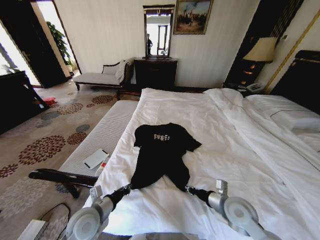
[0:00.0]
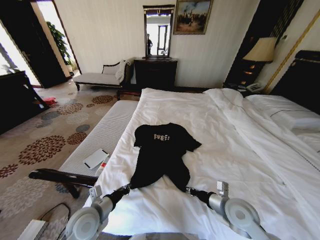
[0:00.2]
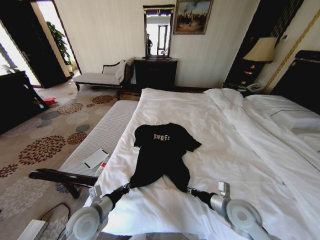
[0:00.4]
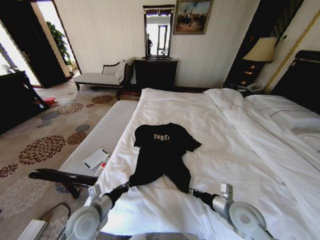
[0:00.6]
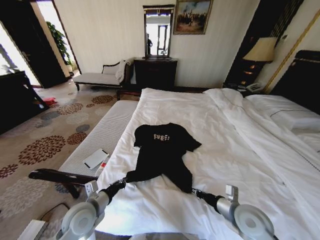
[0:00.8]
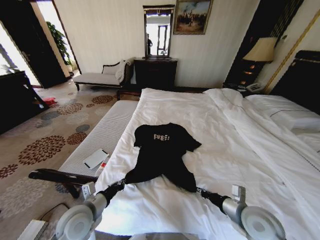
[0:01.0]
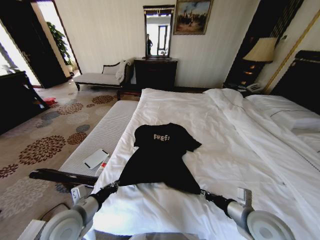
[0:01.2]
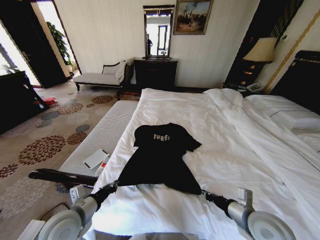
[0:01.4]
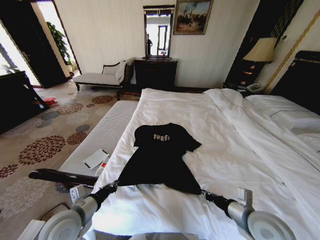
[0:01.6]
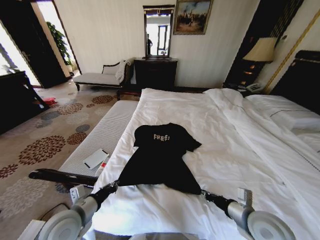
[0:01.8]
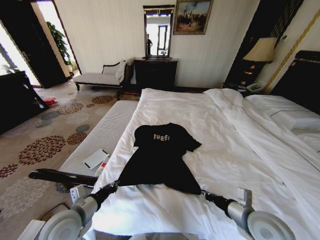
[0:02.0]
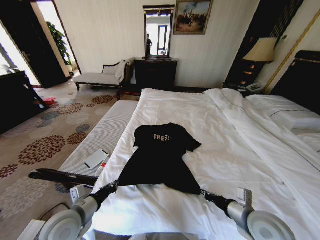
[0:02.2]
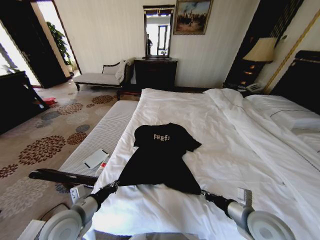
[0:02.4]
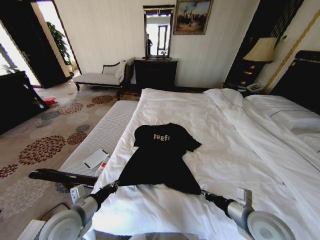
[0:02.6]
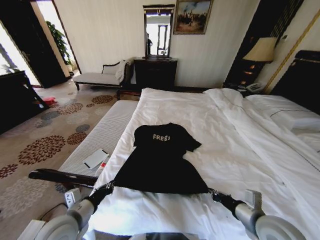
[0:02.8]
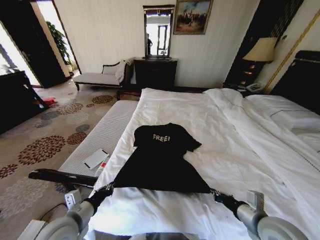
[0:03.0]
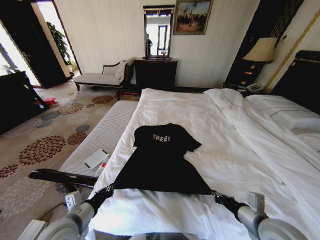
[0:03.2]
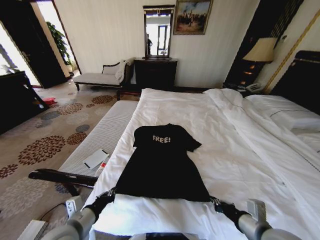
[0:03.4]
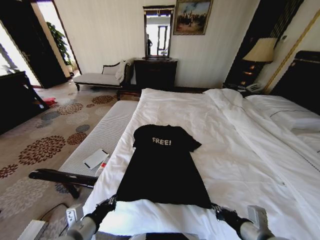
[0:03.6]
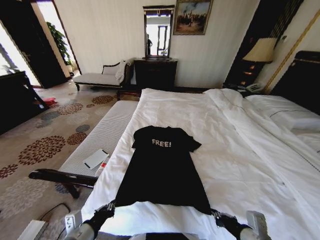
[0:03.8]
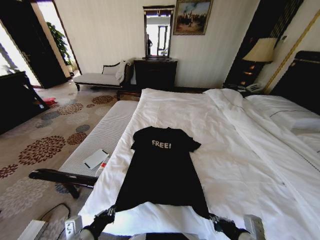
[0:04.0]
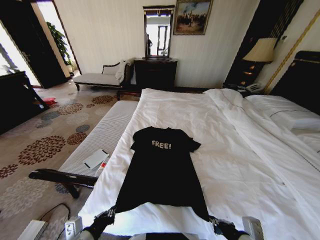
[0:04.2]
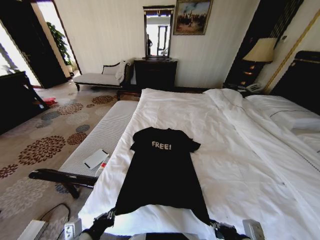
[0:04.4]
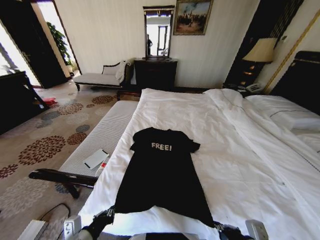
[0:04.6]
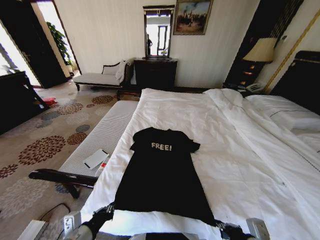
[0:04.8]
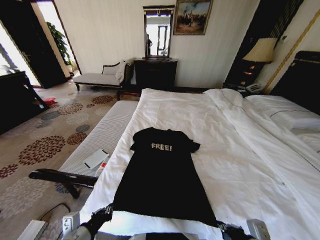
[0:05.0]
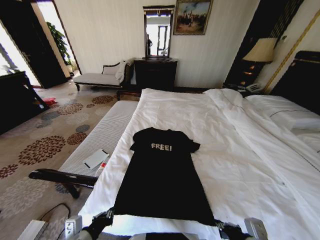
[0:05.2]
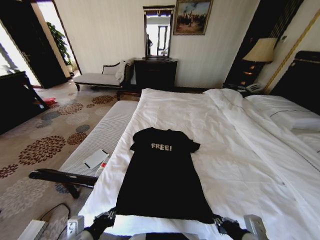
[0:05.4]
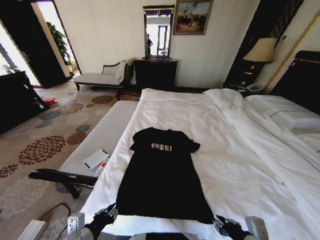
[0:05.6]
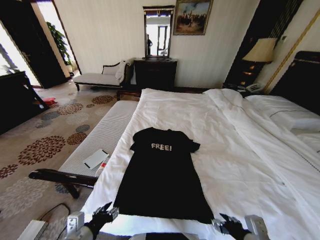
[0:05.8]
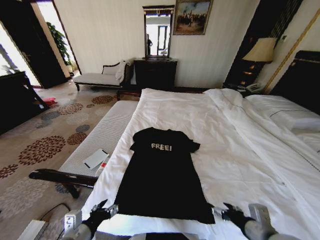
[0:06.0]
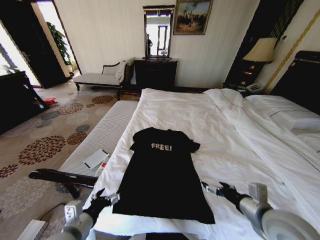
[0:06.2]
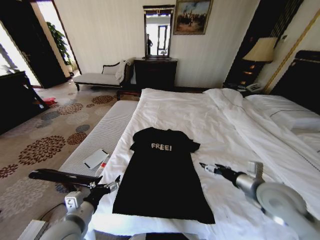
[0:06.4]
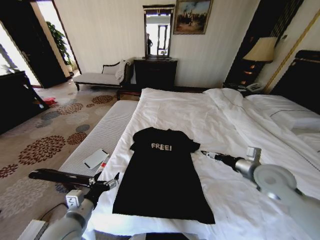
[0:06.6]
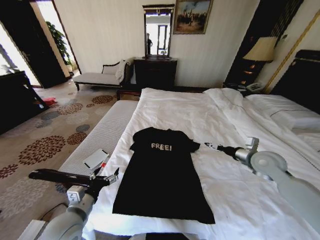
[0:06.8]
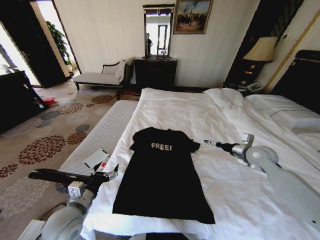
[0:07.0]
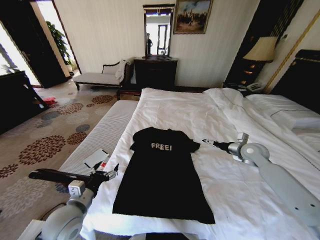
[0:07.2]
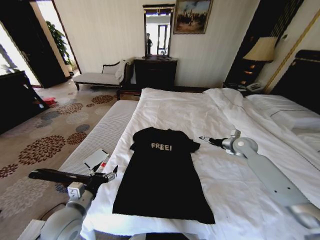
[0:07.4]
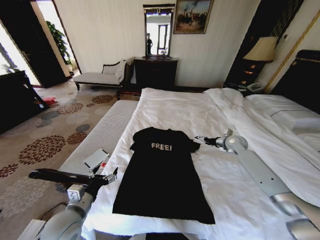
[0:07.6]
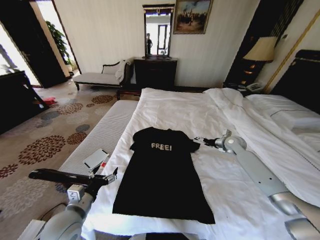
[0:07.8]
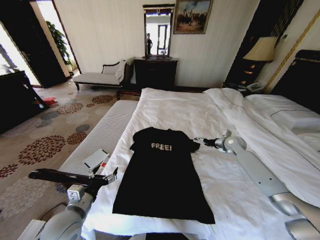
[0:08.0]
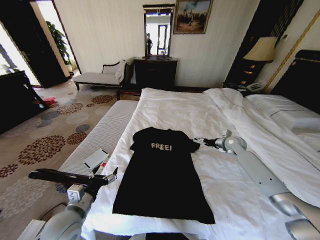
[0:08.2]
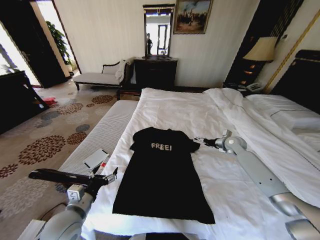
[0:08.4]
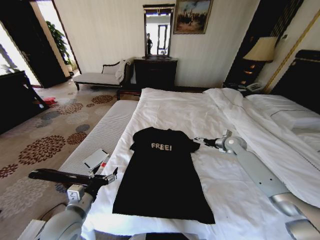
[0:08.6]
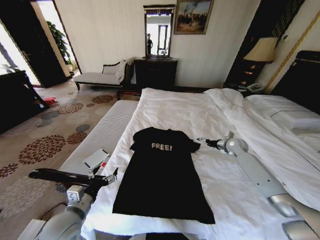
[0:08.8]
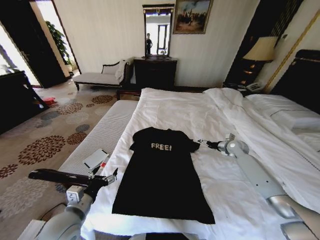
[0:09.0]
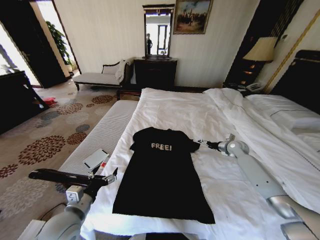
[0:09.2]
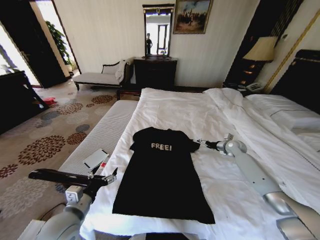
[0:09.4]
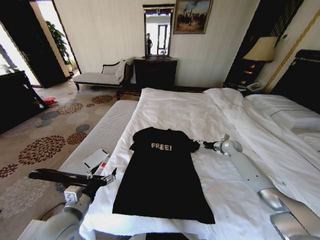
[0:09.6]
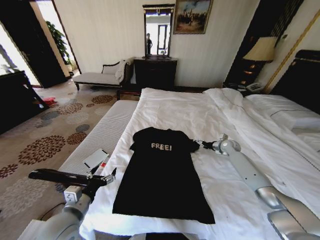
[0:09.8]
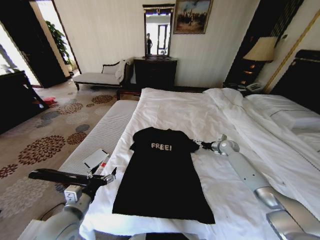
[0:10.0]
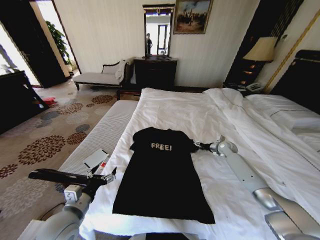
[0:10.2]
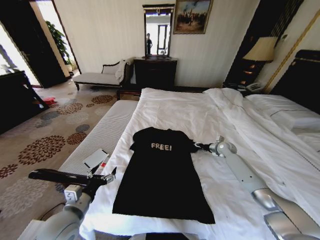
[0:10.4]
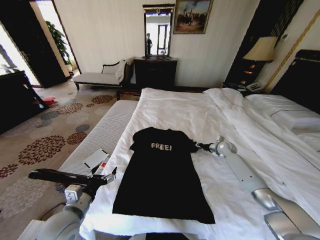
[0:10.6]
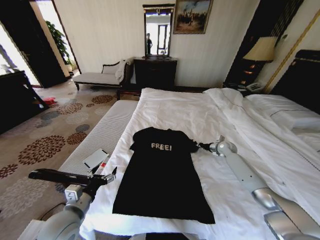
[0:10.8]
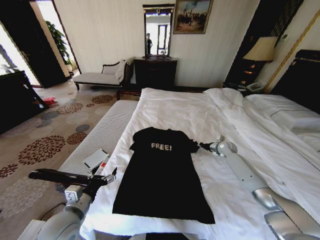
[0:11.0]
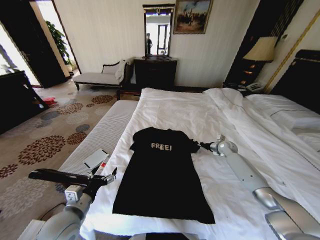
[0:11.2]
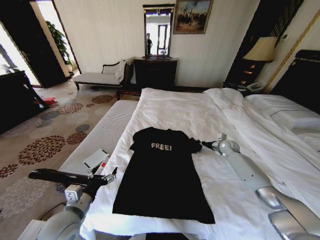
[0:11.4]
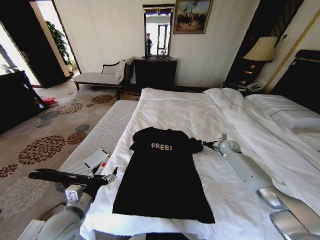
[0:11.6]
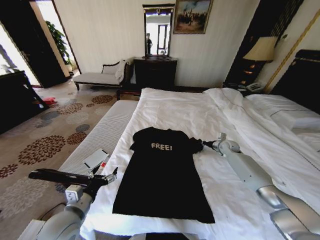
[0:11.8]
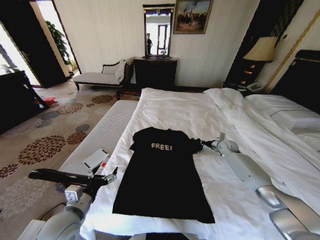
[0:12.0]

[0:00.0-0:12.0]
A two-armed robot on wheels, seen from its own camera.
Task of the whole recording: Fold the clothes on the bed.
0:00.0 to 0:01.6: The right gripper heads backward, covering some 5 cm; the left gripper changes place by approximately 5 cm.
0:01.6 to 0:03.0: The grippers stay close to where they were, moving slightly.
0:03.0 to 0:04.4: Both grippers travel together backward, about 10 cm.
0:04.4 to 0:06.0: The left gripper opens. The right gripper opens.
0:06.0 to 0:07.6: The left gripper travels forward by approximately 10 cm. Meanwhile the right gripper shifts about 40 cm forward.
0:07.6 to 0:09.0: The grippers make only small movements.
0:09.0 to 0:10.4: The right gripper changes place by some 5 cm, and closes.
0:10.4 to 0:12.0: The right gripper closes.

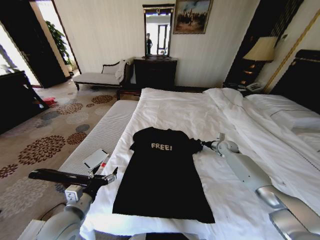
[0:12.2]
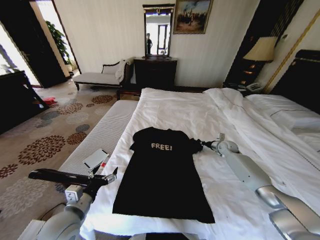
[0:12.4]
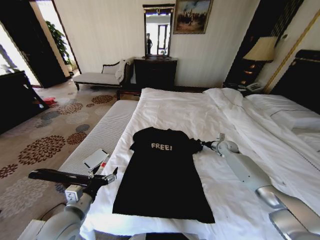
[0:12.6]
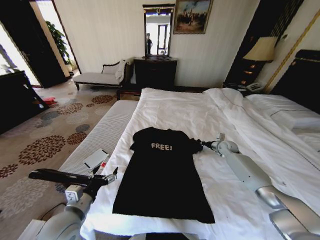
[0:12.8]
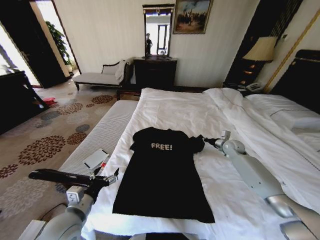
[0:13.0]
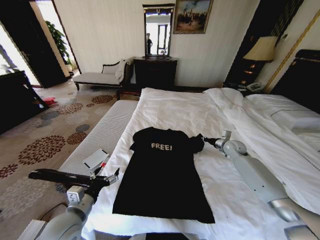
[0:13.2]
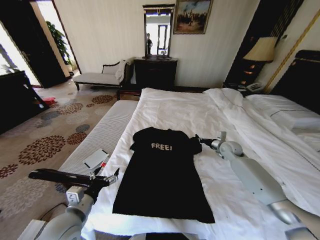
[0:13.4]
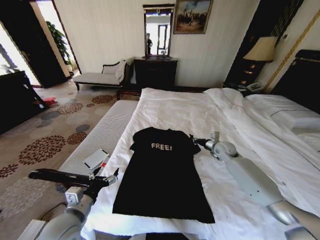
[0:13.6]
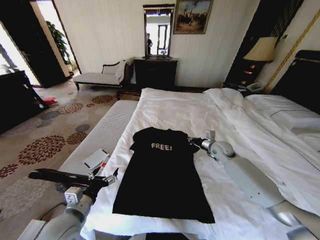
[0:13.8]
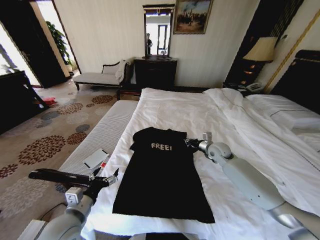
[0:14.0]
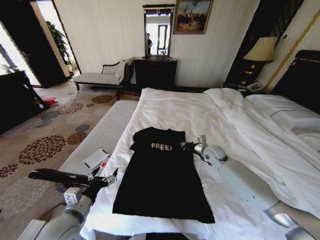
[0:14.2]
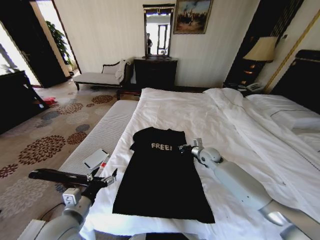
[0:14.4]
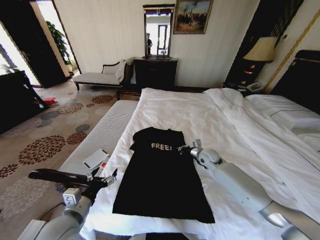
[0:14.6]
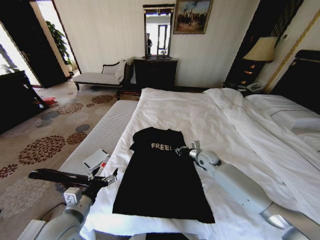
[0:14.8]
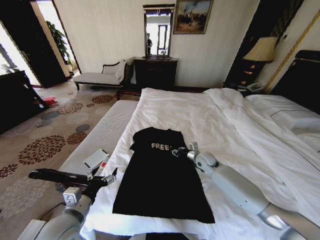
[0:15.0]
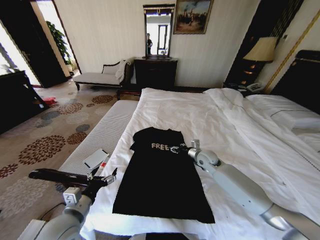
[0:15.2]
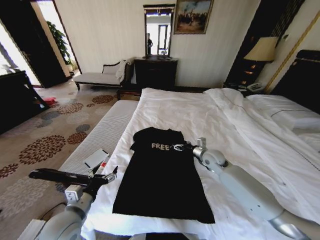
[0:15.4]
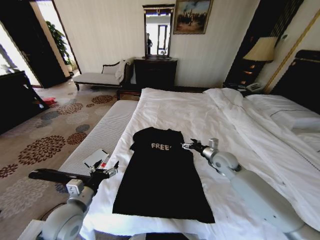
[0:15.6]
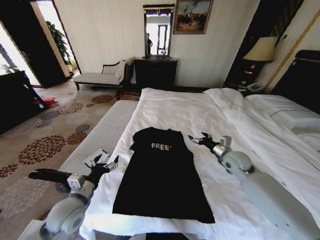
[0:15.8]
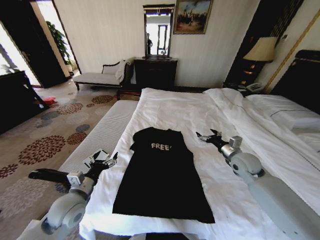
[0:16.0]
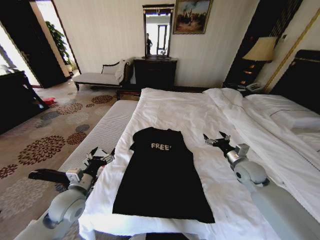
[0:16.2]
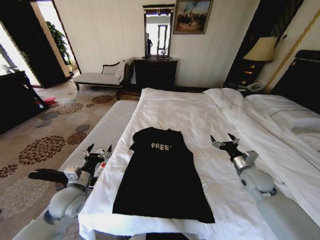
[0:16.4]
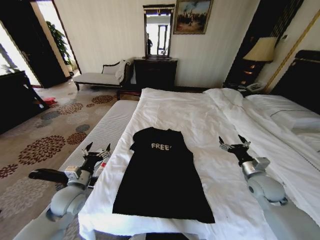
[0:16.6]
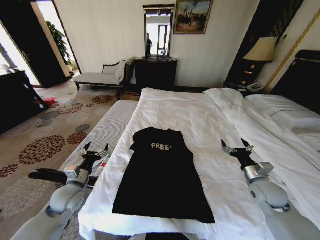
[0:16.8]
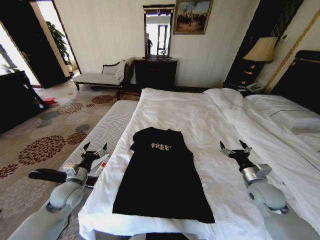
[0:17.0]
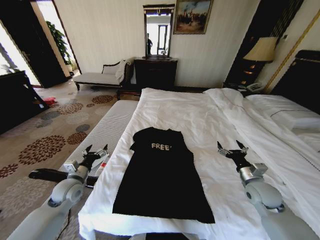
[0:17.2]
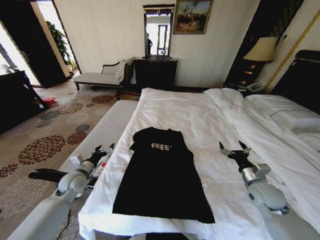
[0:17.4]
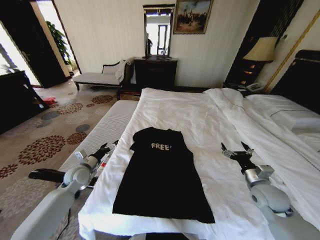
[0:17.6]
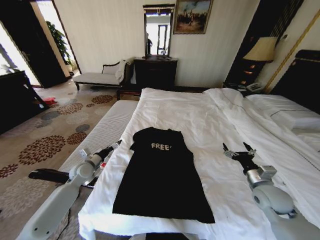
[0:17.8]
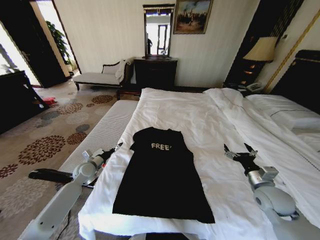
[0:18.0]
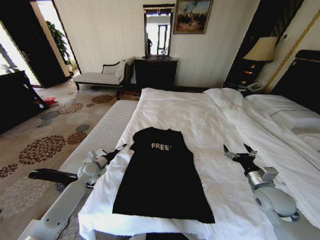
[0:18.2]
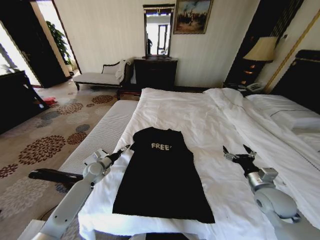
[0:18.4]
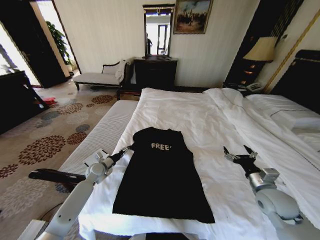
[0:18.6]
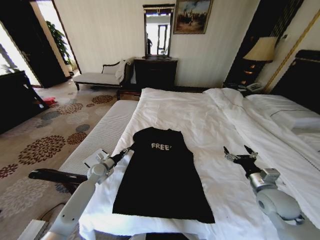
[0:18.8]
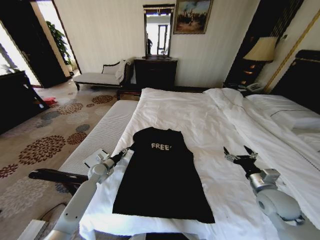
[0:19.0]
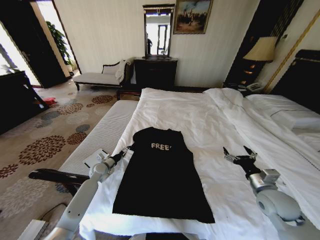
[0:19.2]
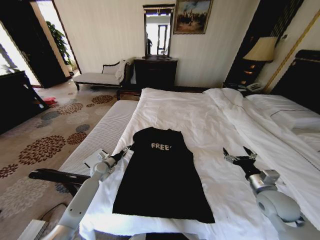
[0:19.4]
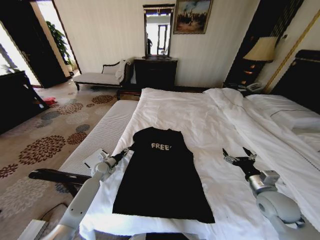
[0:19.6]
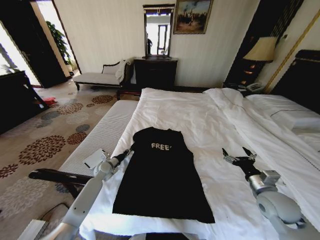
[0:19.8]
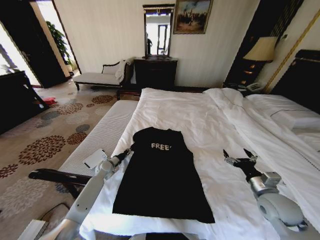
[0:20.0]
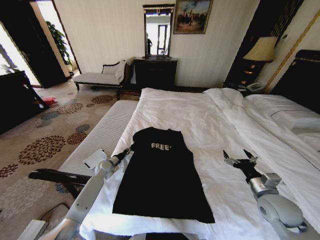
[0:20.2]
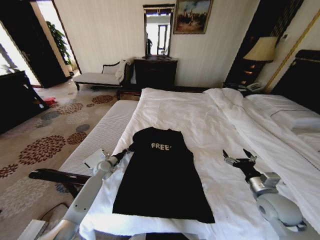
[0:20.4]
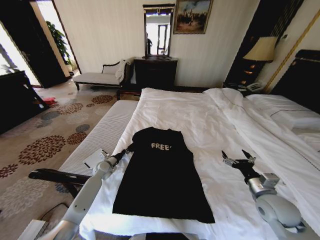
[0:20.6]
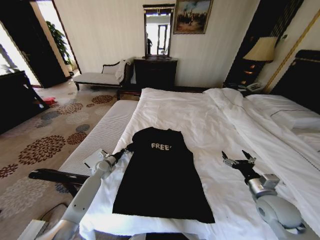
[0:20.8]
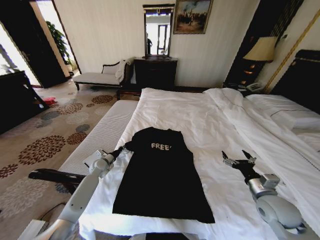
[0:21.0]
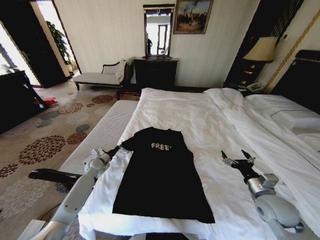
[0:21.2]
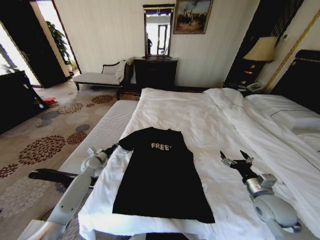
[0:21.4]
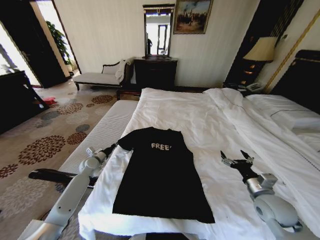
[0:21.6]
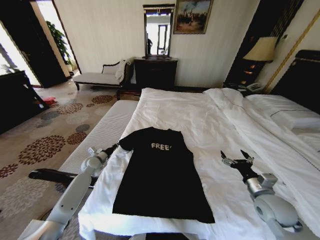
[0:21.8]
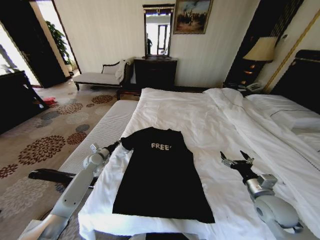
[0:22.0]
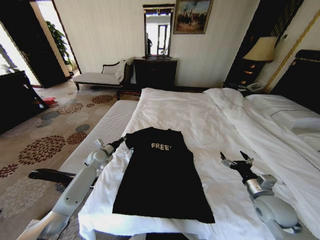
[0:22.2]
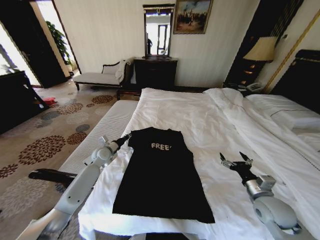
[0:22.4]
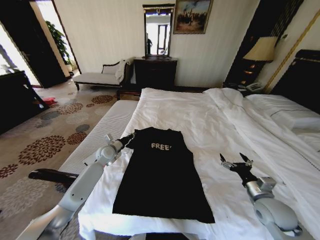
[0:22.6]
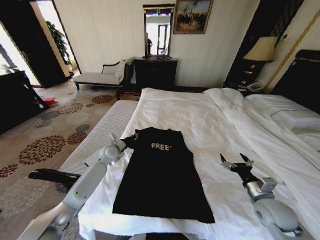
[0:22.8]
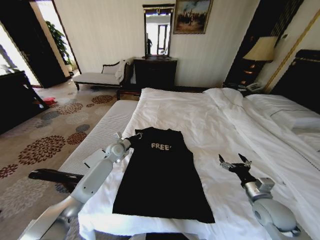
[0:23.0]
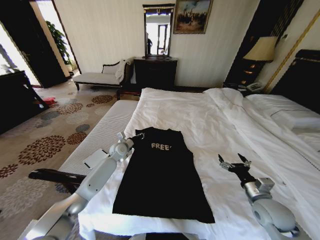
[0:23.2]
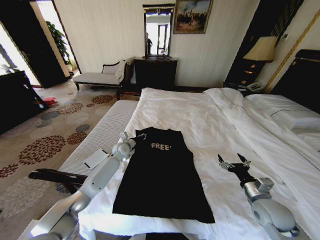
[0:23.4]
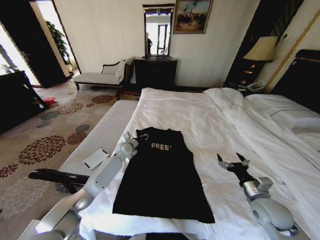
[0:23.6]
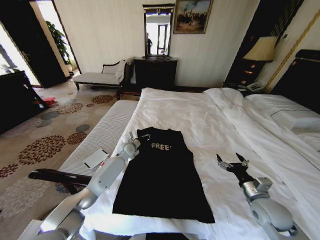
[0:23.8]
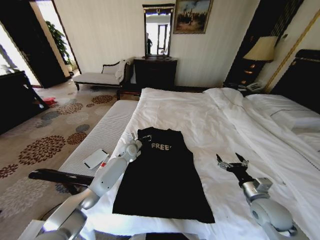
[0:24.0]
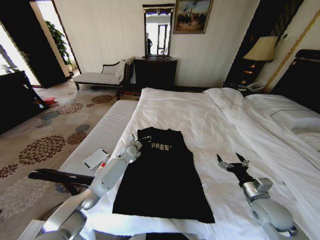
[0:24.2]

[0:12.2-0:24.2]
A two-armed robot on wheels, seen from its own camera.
Task of the whole recording: Fold the clothes on the bed.
0:12.2 to 0:13.8: The right gripper travels to the left, backward and upward by approximately 15 cm.
0:13.8 to 0:15.2: The right gripper travels to the left by roughly 5 cm, and opens its fingers.
0:15.2 to 0:16.6: The right gripper moves backward and to the right, about 20 cm, and opens up, while the left gripper travels forward by about 10 cm.
0:16.6 to 0:18.2: The left gripper shifts about 15 cm forward and downward.
0:18.2 to 0:19.8: The left gripper shifts some 5 cm downward, and closes up.
0:19.8 to 0:21.2: The left gripper shifts by roughly 5 cm.
0:21.2 to 0:22.6: The left gripper travels to the right and upward by roughly 10 cm.
0:22.6 to 0:24.2: The left gripper shifts approximately 10 cm to the right.
